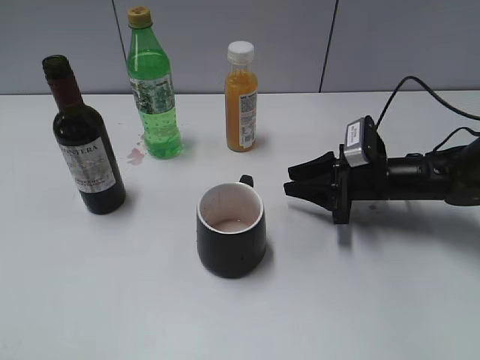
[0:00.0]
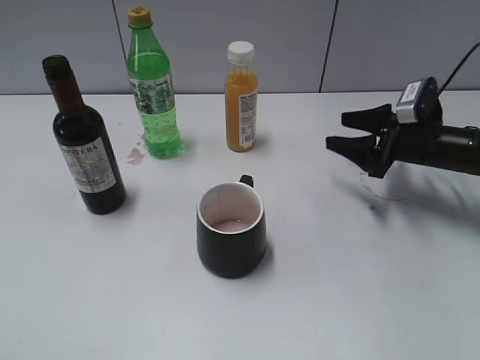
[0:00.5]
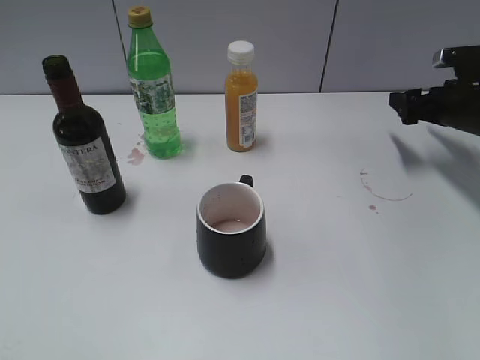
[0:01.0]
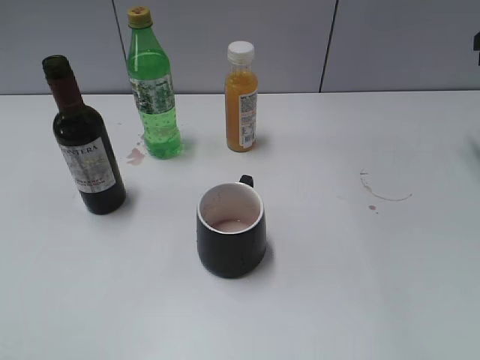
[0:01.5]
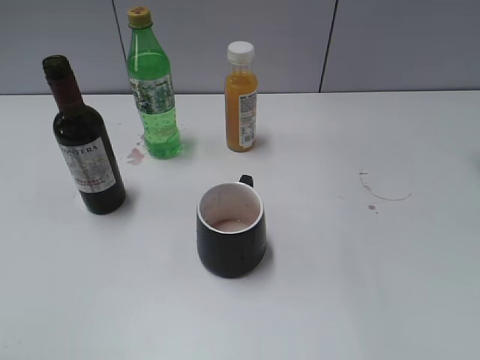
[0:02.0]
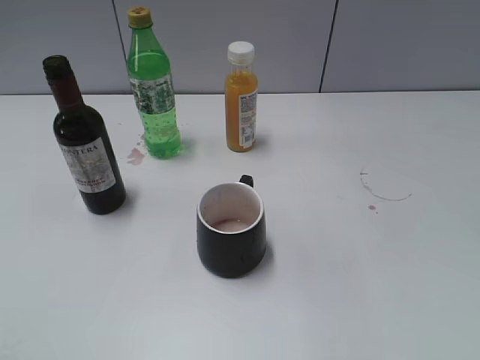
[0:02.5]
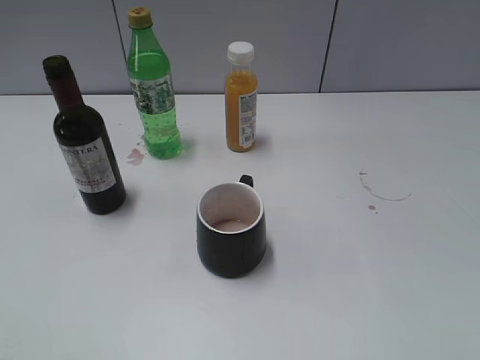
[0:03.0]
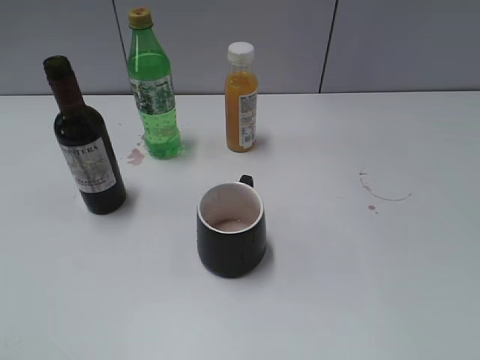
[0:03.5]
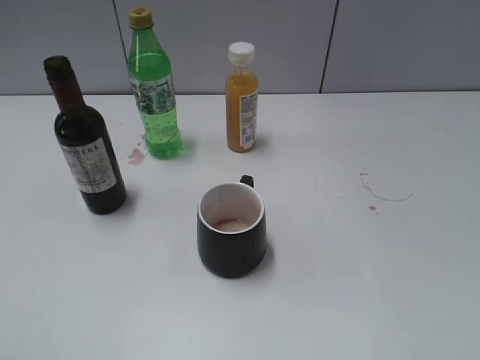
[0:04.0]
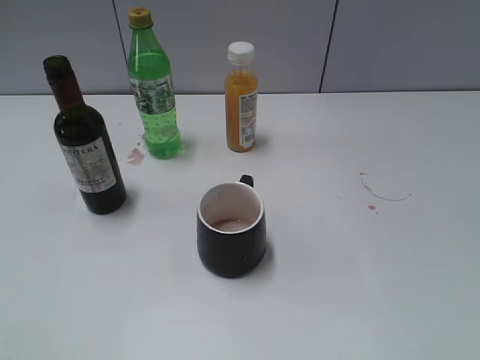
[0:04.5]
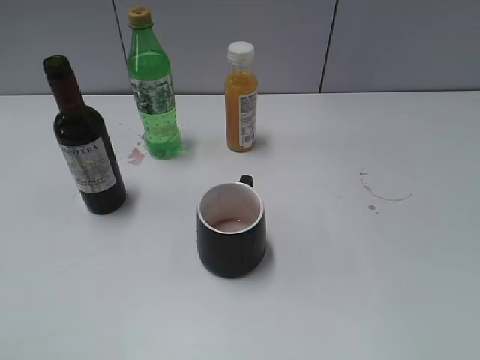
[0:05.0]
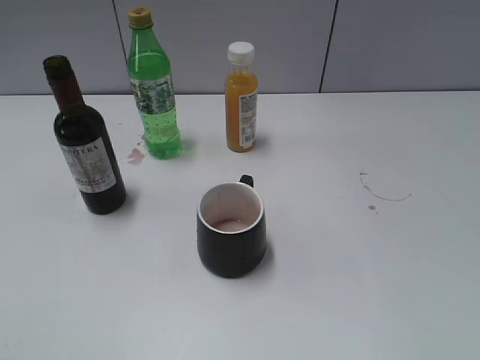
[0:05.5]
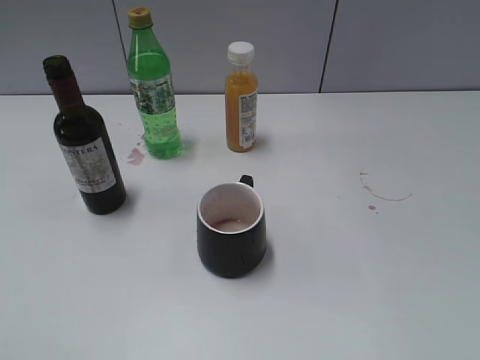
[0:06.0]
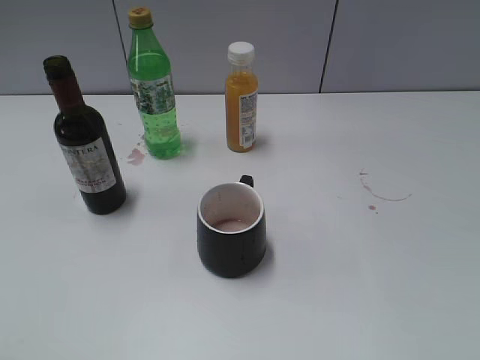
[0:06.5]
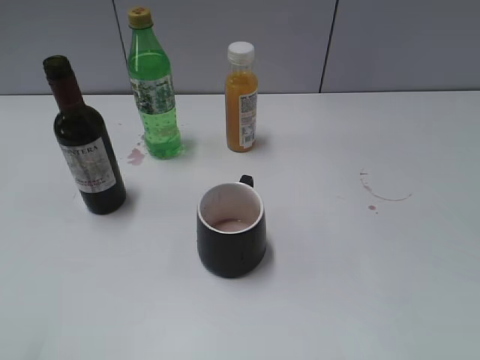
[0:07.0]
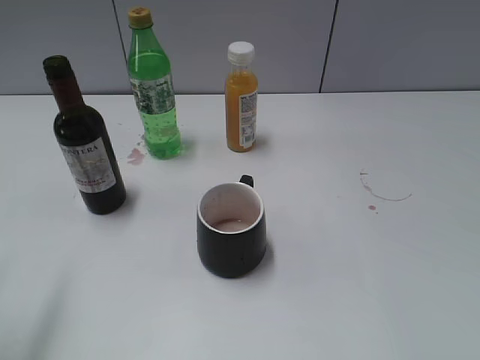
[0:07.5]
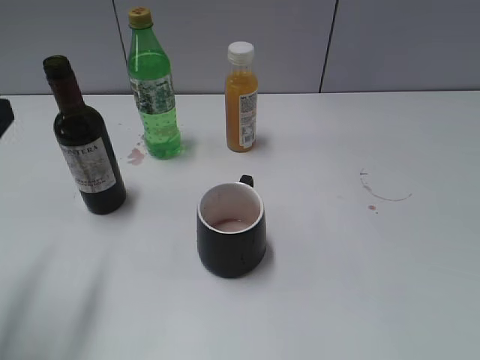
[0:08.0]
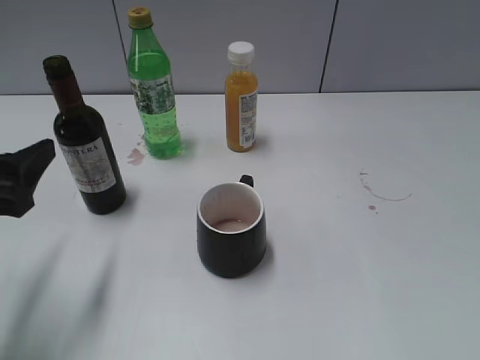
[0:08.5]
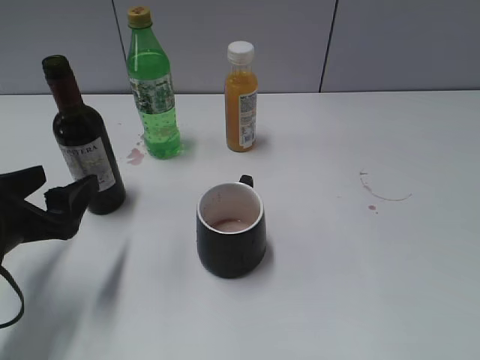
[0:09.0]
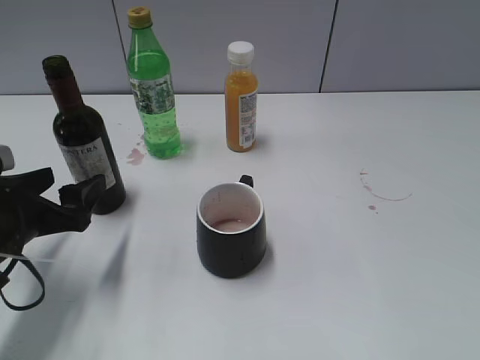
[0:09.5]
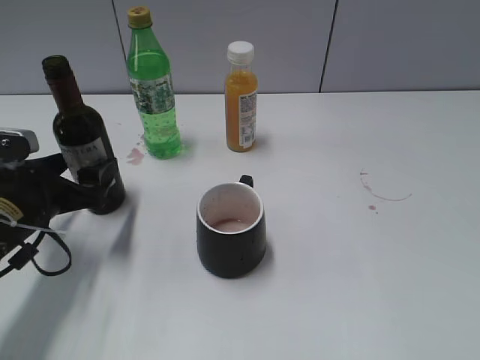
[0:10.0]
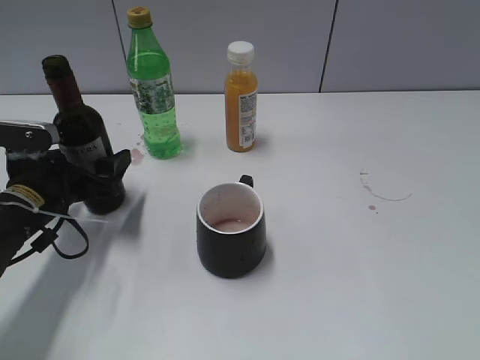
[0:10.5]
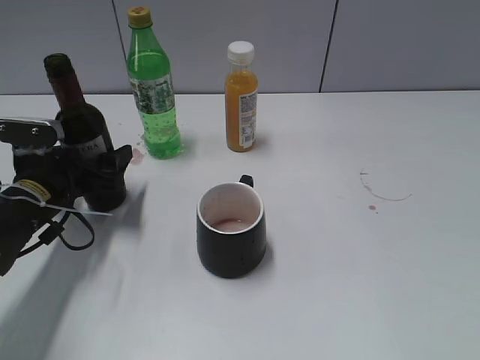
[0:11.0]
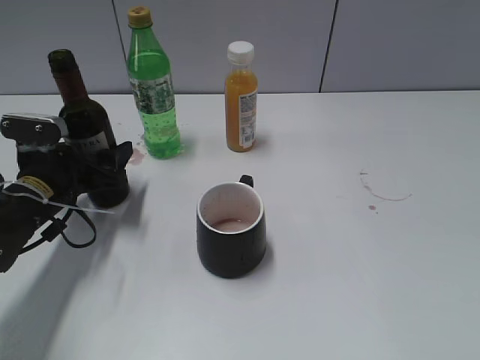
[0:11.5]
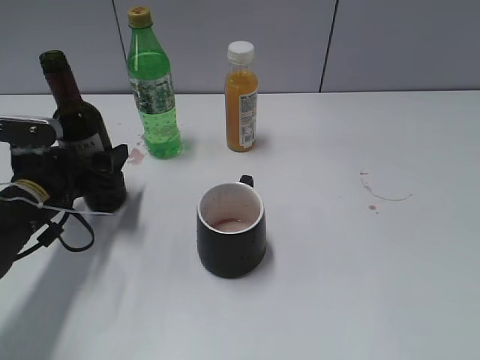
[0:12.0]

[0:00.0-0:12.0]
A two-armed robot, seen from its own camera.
Step, 0:00.0 to 0:11.0: Grasp the bottle with red wine with left gripper.
0:00.0 to 0:02.0: The left gripper closes; the right gripper is displaced upward and to the right by about 35 cm, and opens its fingers.
0:06.0 to 0:08.0: The left gripper moves forward, about 15 cm.
0:08.0 to 0:10.0: The left gripper heads downward and forward, covering some 15 cm.
0:10.0 to 0:12.0: The left gripper closes up.

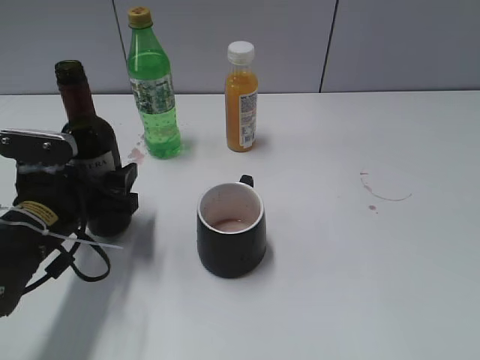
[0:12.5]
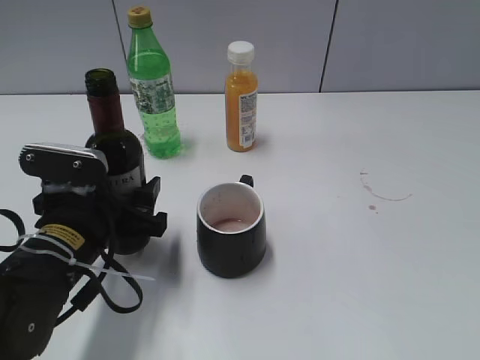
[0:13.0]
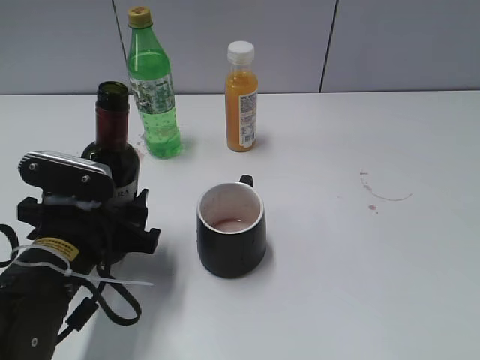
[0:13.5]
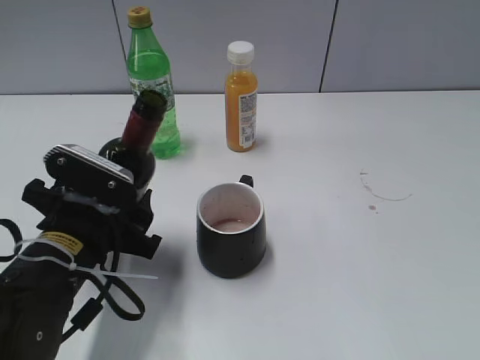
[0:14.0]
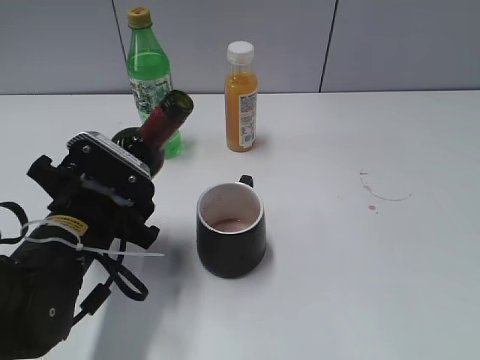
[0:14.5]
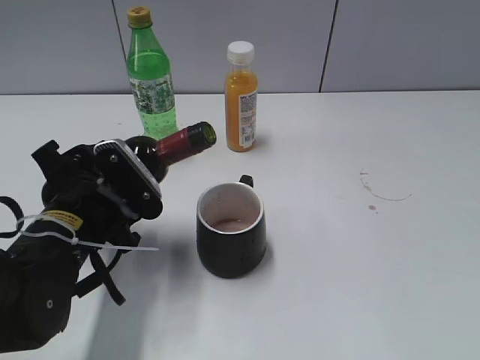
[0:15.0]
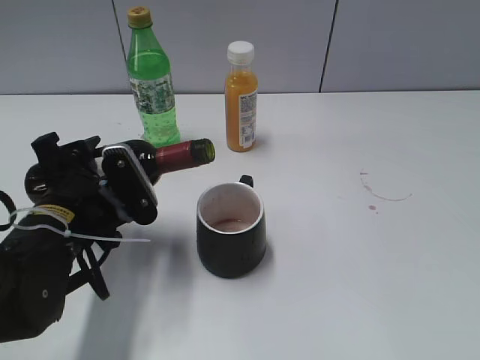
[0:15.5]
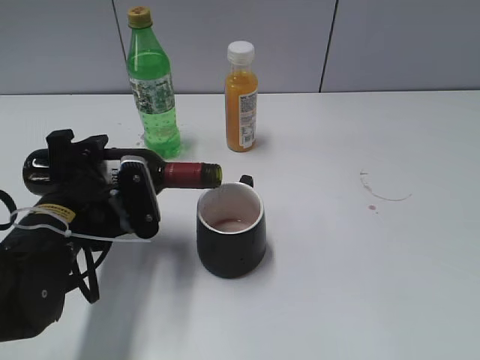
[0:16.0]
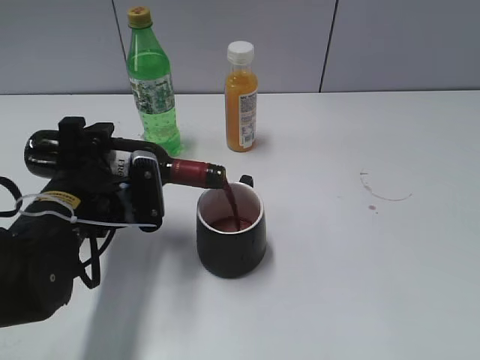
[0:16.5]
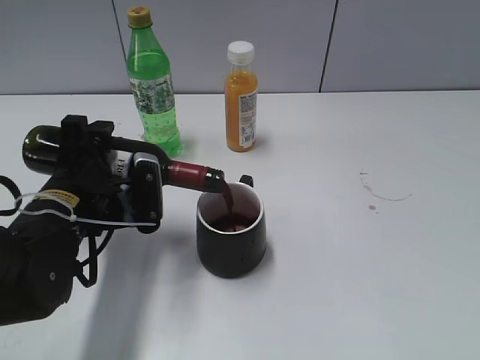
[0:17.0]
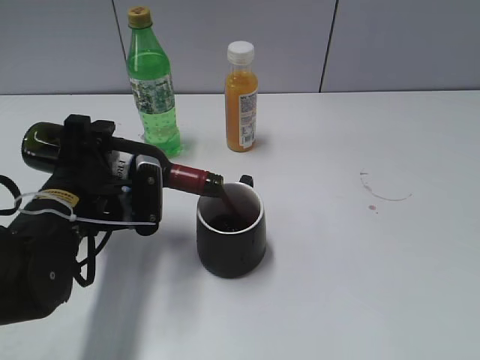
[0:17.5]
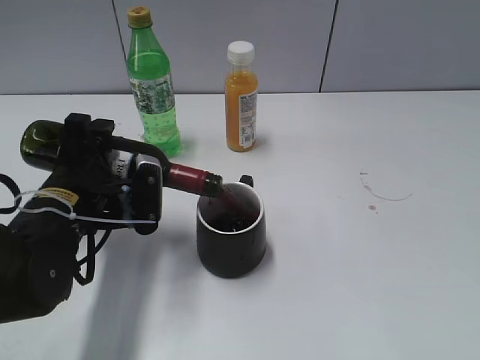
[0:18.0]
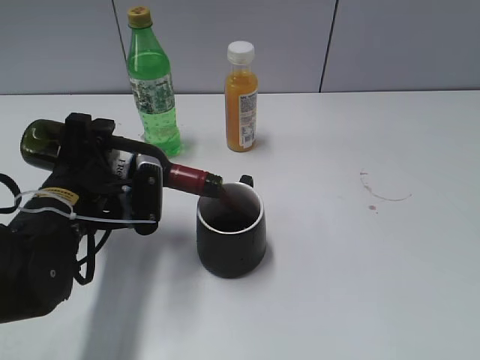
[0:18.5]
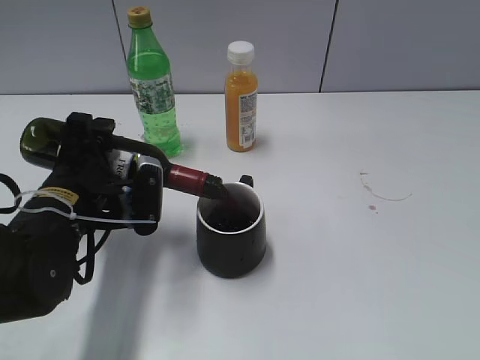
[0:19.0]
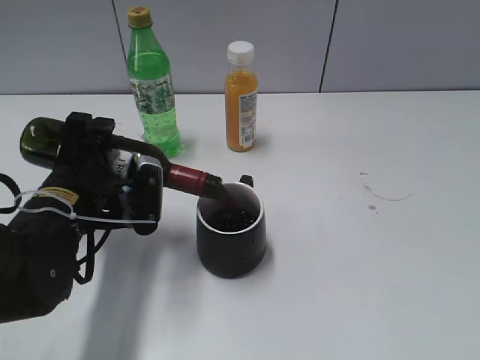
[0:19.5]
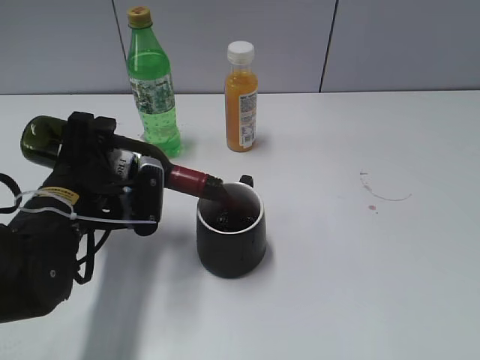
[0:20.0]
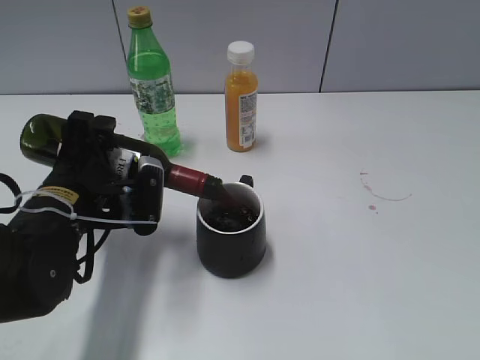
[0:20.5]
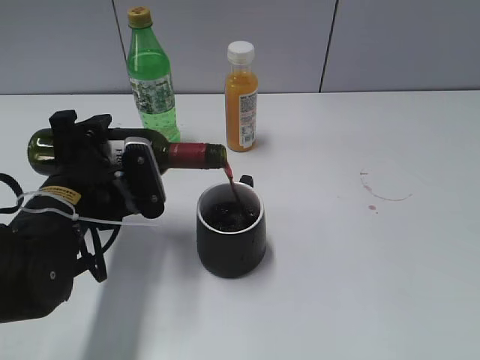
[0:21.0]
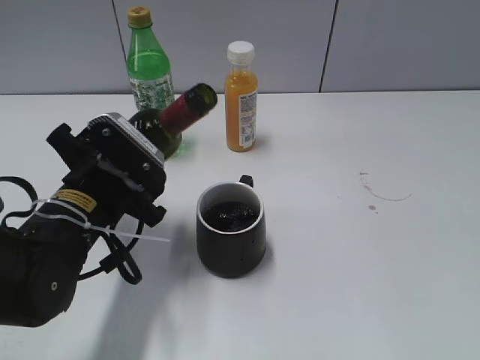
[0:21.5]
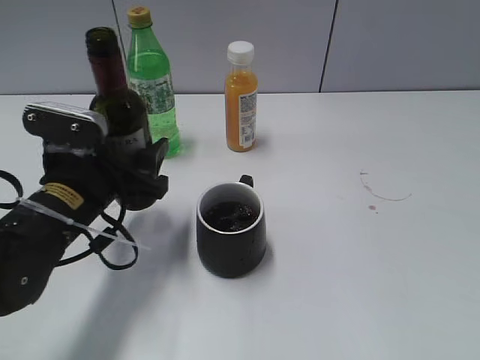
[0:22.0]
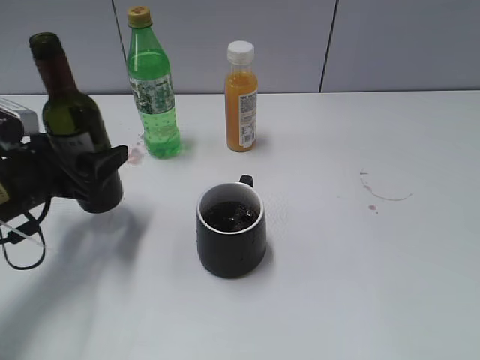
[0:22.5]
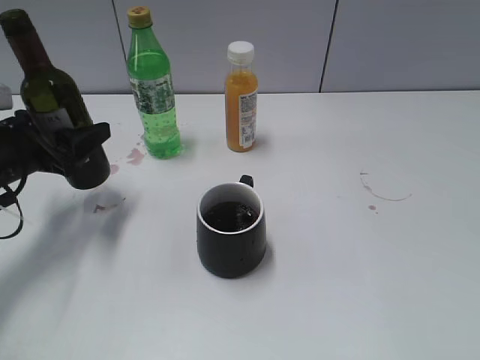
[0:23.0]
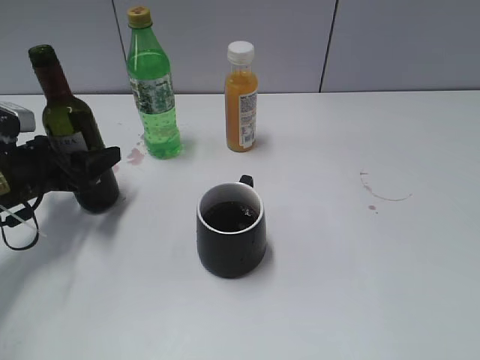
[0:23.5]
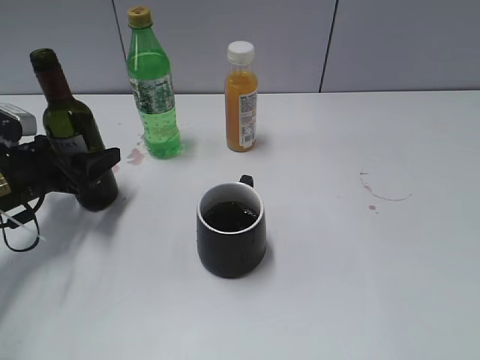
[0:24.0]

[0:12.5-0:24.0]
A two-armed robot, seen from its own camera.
Step, 0:12.5 to 0:21.0: Pour the red wine from bottle to cup with left gripper.
0:12.5 to 0:14.5: The left gripper heads to the right, covering approximately 5 cm.
0:16.5 to 0:18.5: The grippers move only a little.
0:18.5 to 0:20.0: The two grippers keep their place.
0:22.0 to 0:24.0: The left gripper goes roughly 15 cm to the left and forward.

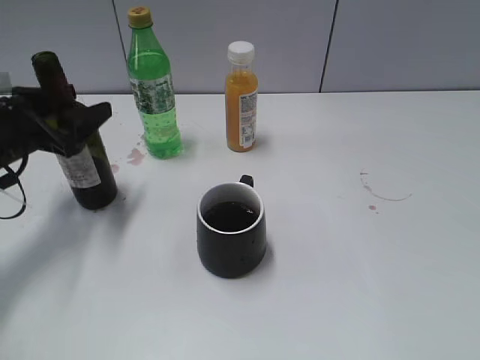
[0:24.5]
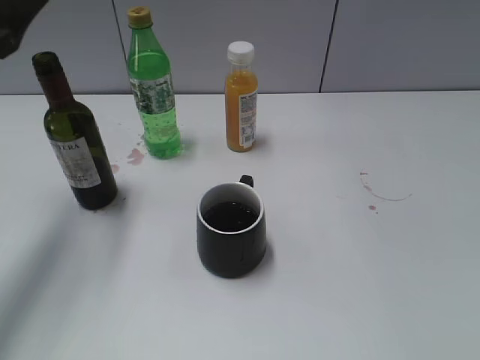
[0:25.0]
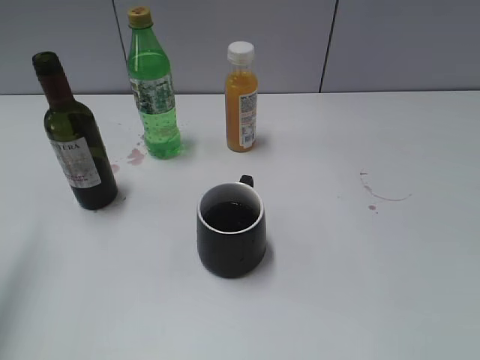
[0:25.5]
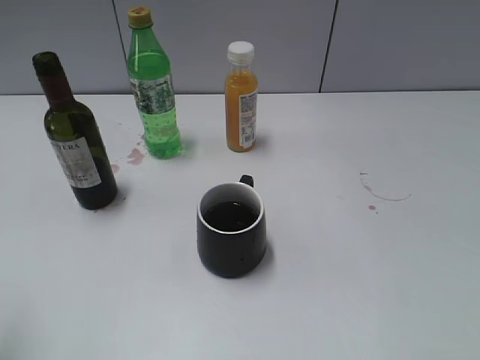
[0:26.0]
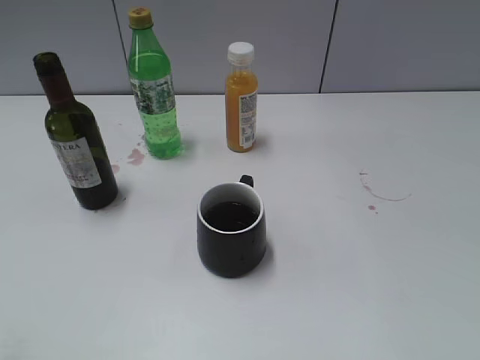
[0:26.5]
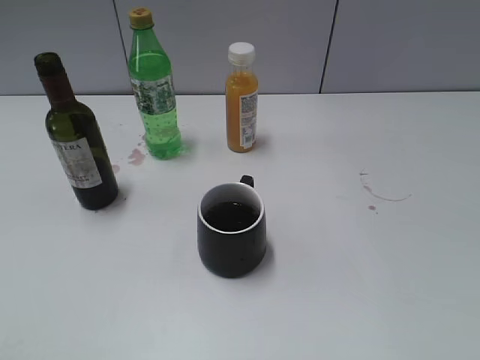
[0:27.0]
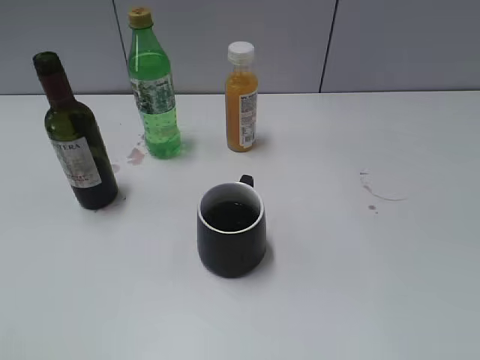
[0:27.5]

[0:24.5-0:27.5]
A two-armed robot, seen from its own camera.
0:24.5 to 0:26.0: The left gripper is displaced backward and upward by about 25 cm.
